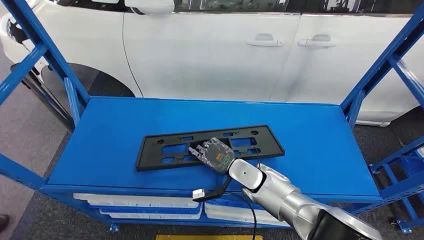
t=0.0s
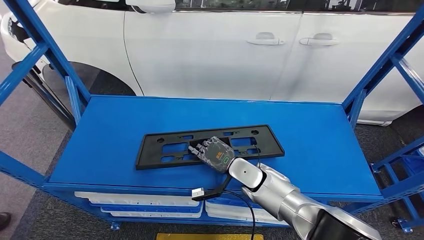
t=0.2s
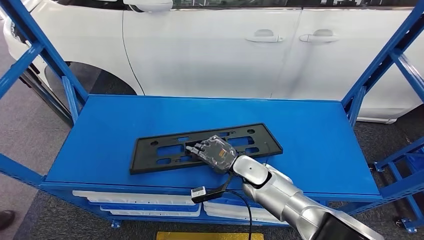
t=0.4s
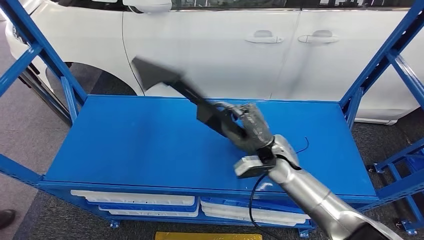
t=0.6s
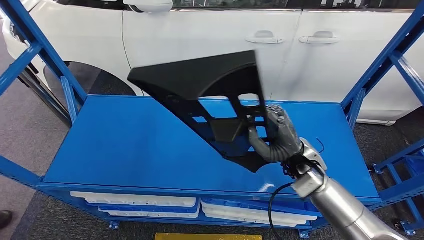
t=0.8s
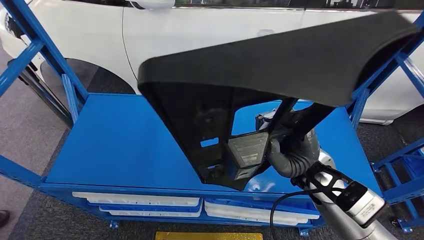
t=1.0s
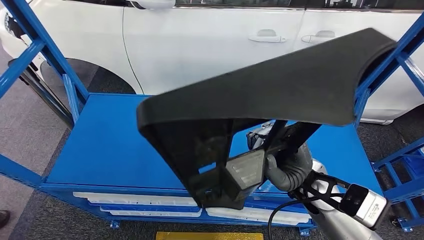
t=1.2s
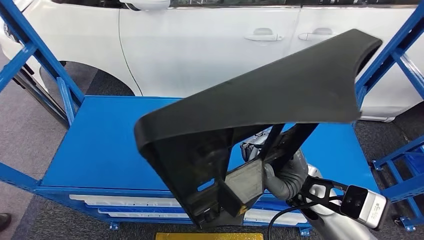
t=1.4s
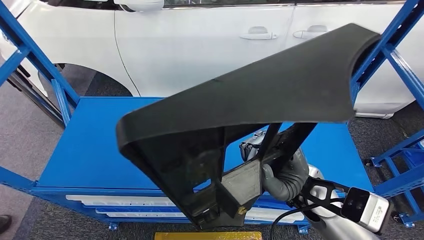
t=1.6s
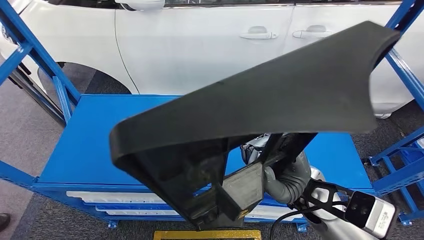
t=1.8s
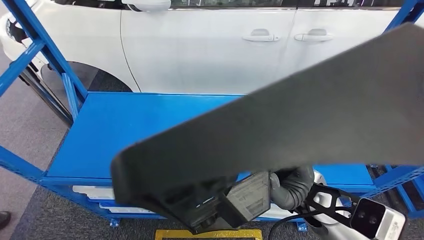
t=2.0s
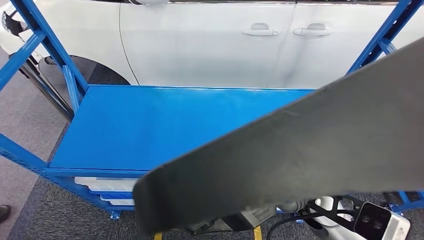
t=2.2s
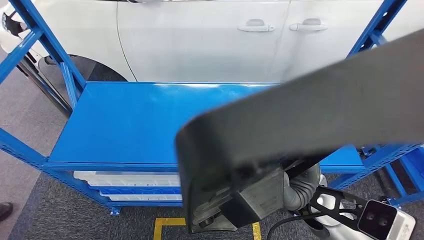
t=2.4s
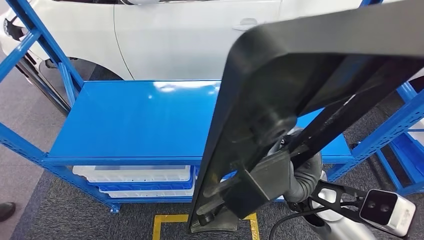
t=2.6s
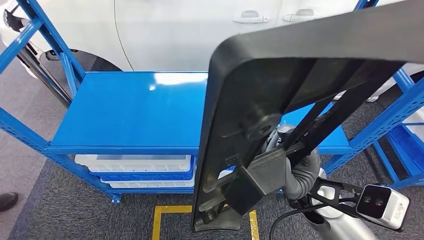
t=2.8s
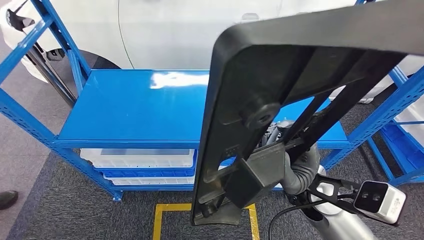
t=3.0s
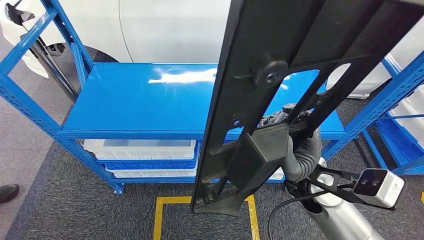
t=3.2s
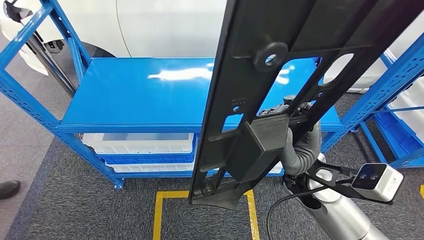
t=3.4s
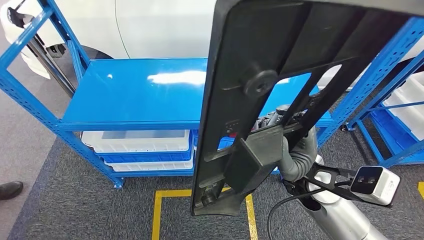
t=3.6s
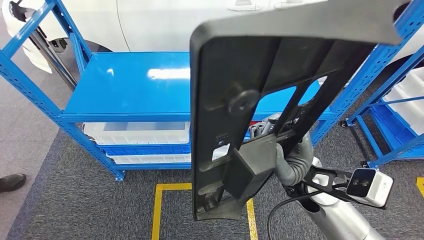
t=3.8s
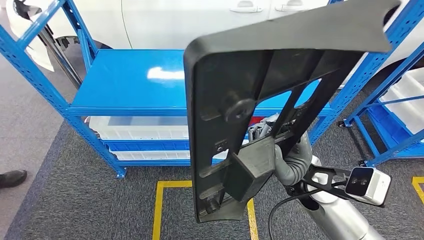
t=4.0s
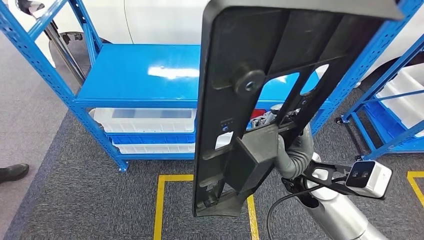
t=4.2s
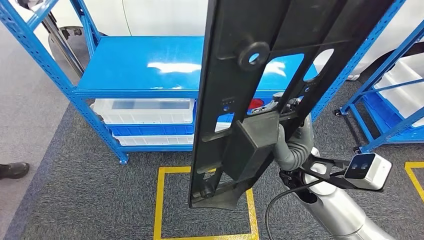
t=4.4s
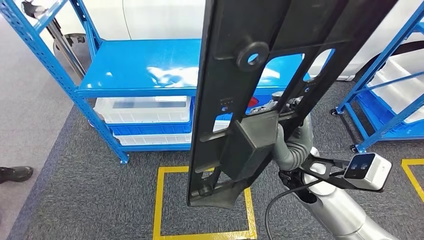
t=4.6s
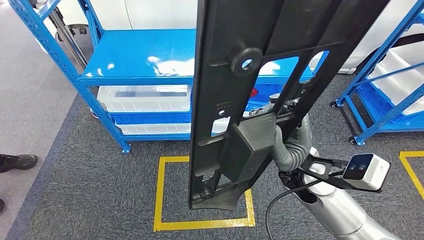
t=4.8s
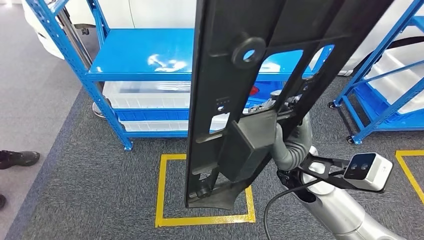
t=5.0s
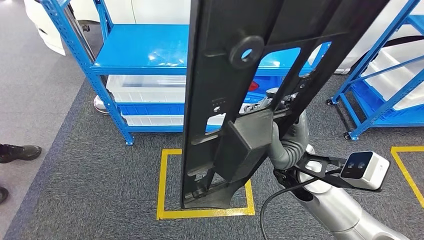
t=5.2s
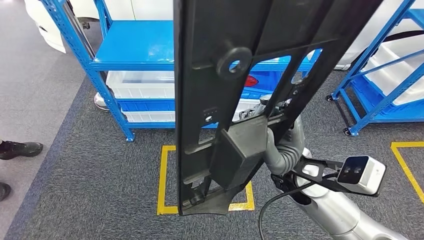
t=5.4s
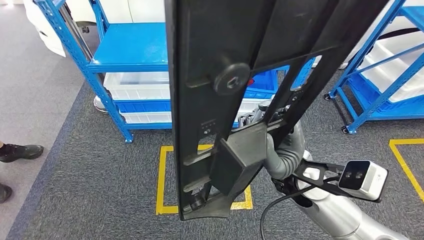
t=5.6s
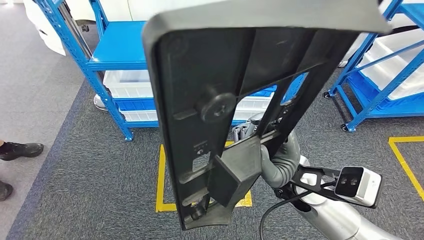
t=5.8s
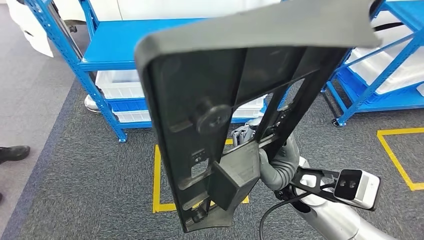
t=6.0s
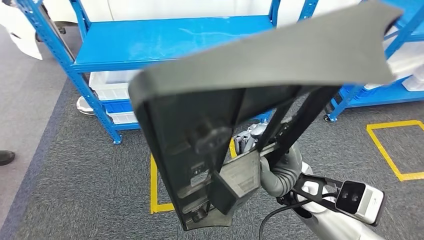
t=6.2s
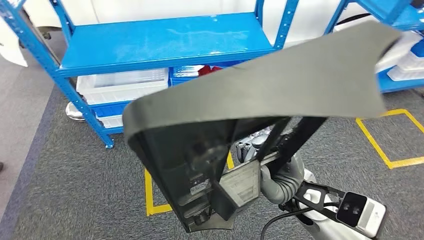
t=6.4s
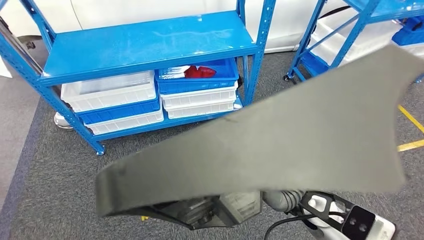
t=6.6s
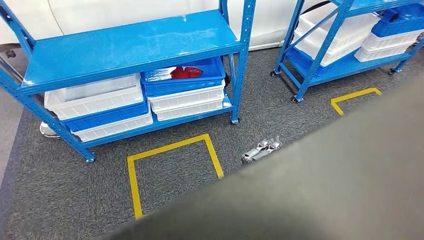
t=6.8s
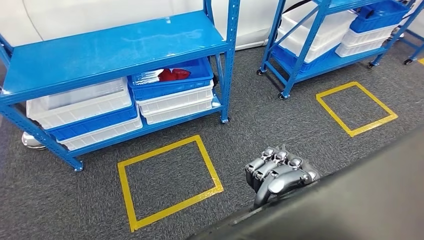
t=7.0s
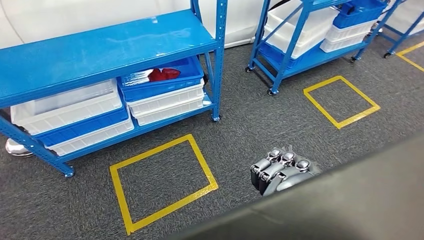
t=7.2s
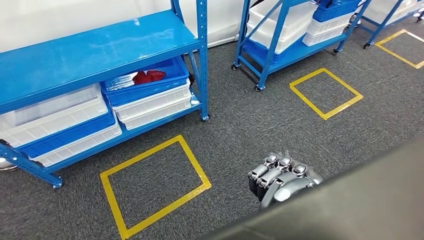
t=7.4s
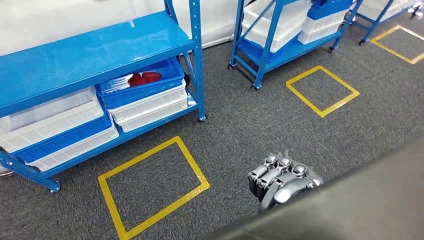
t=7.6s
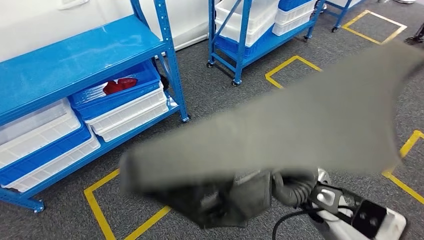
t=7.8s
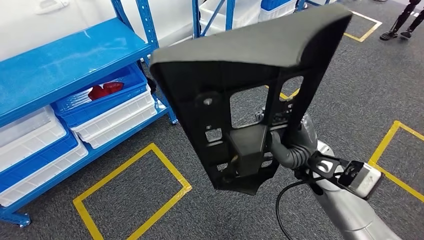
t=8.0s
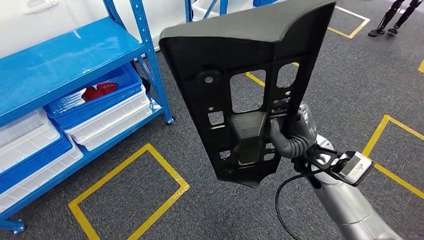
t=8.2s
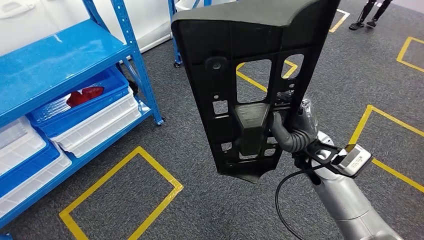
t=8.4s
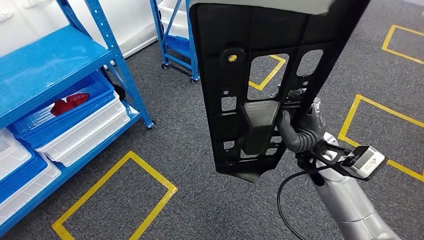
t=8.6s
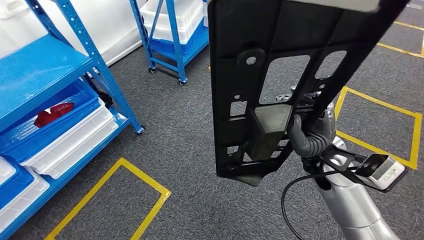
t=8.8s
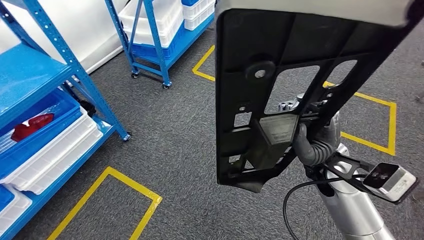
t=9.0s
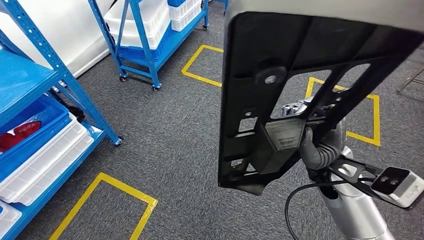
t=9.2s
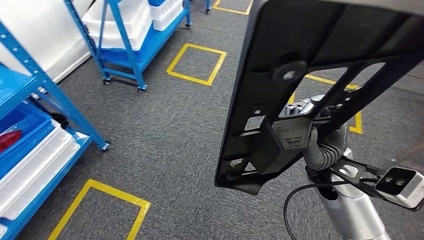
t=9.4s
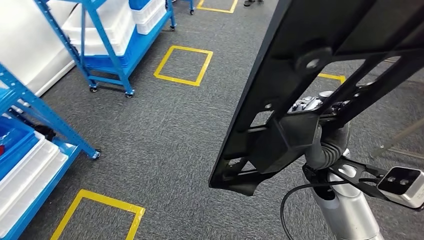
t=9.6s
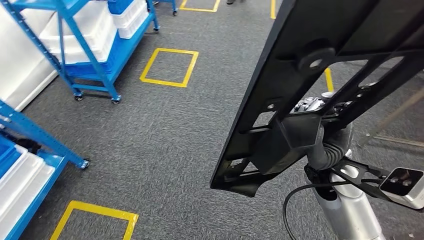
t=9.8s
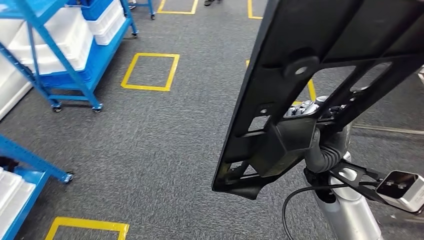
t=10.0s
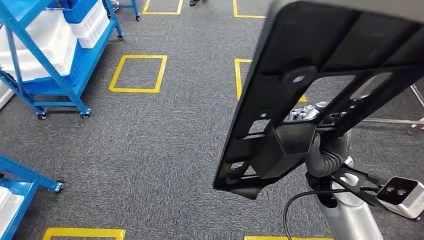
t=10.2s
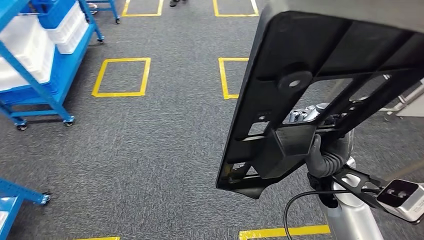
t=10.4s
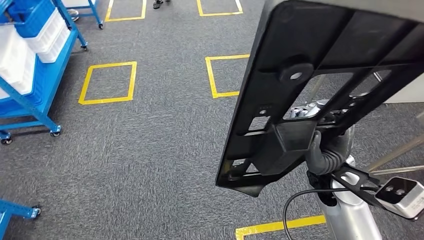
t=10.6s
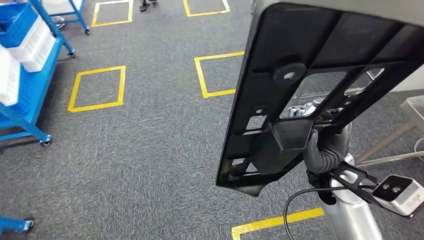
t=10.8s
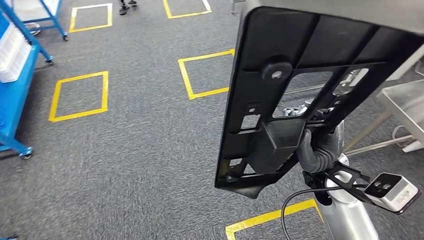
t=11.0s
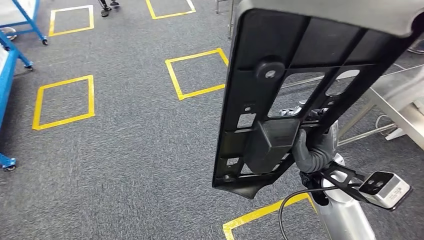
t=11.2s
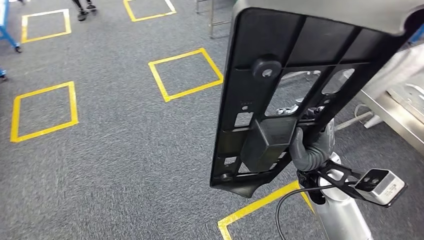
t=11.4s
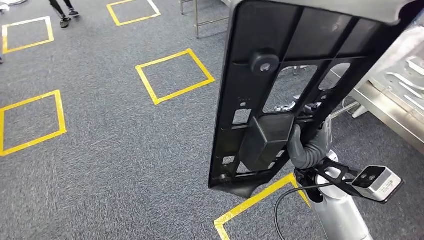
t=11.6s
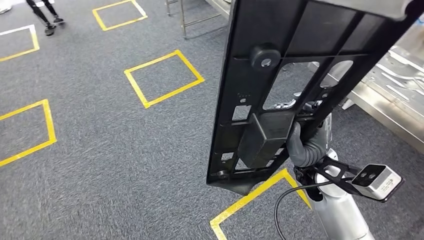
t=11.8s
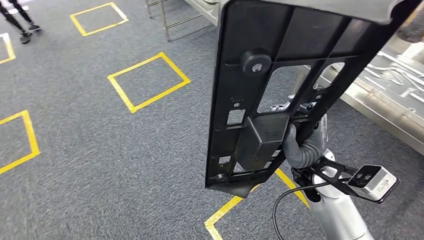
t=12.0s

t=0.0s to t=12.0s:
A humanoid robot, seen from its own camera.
Step, t=0.0s to t=3.4s: Pick up the large material from the shelf.

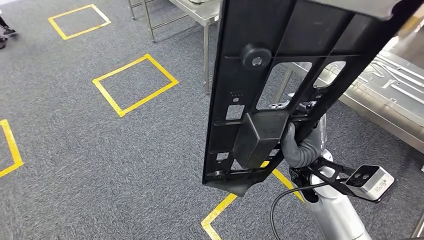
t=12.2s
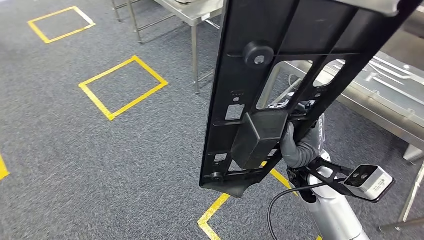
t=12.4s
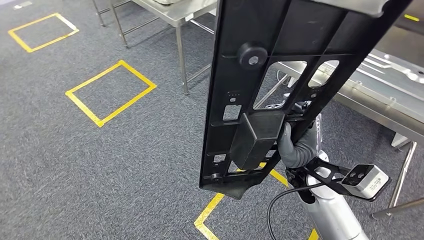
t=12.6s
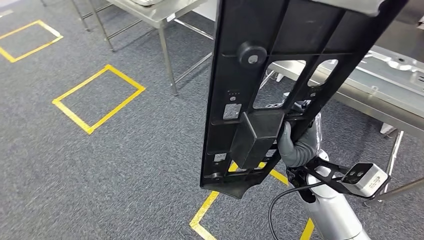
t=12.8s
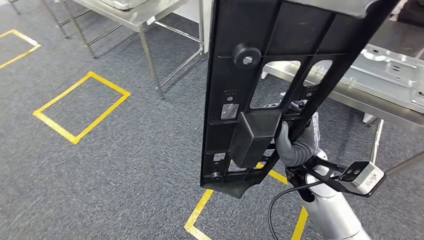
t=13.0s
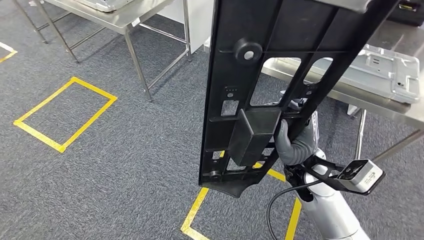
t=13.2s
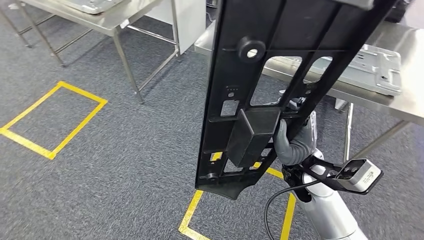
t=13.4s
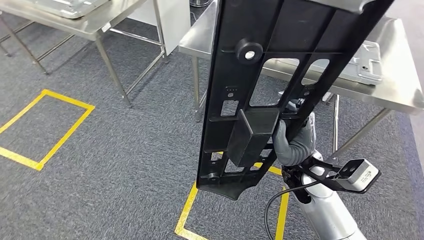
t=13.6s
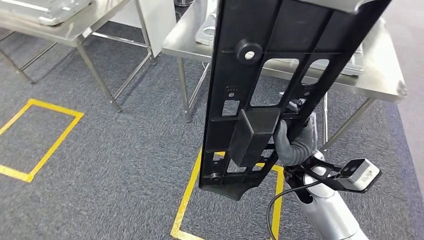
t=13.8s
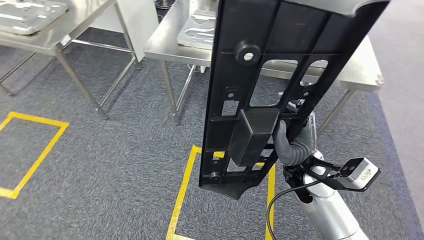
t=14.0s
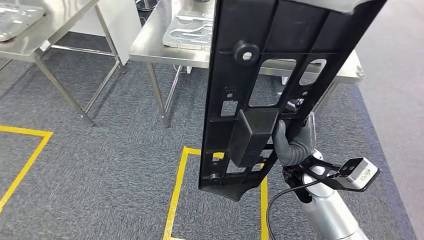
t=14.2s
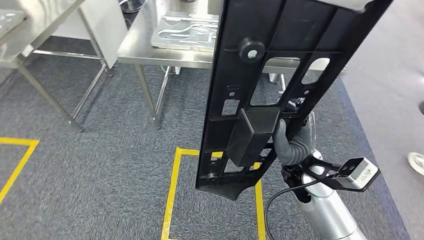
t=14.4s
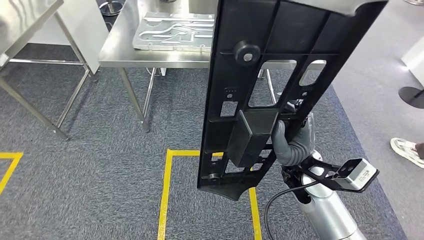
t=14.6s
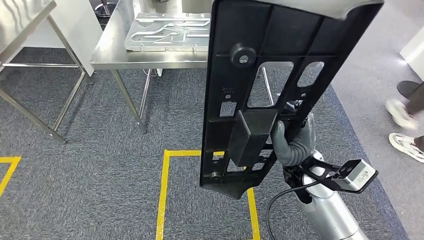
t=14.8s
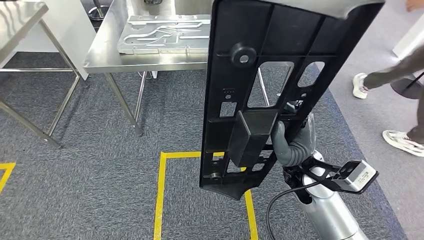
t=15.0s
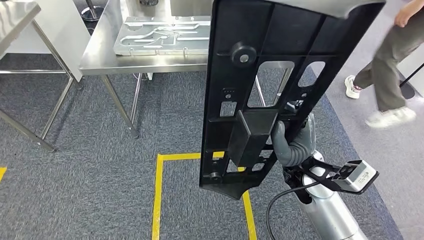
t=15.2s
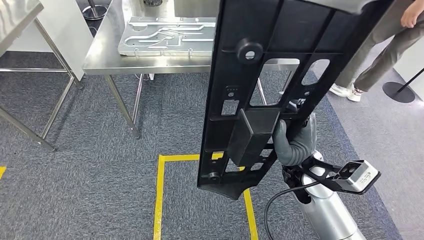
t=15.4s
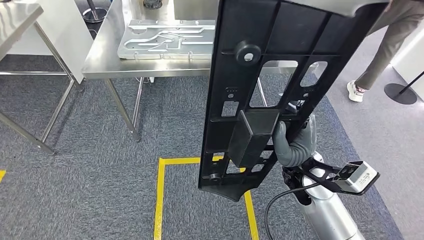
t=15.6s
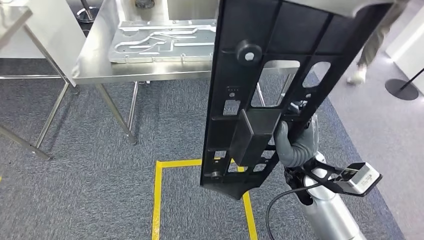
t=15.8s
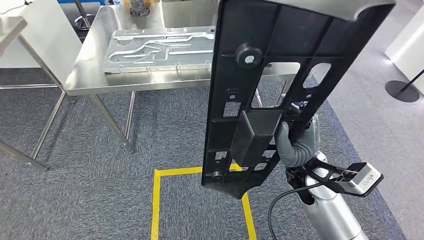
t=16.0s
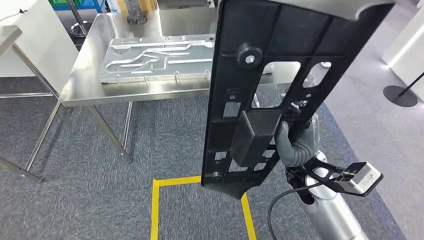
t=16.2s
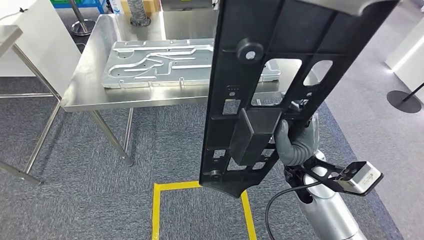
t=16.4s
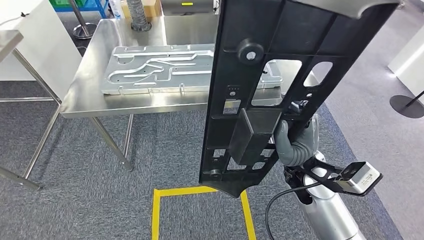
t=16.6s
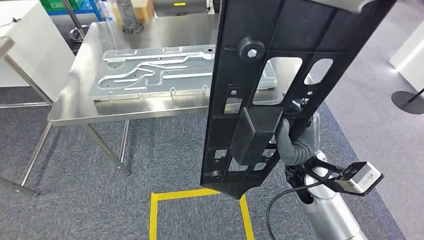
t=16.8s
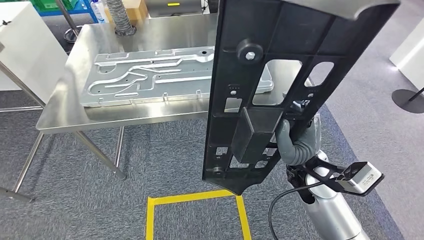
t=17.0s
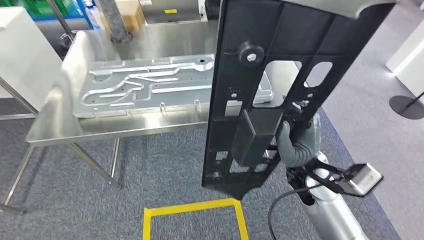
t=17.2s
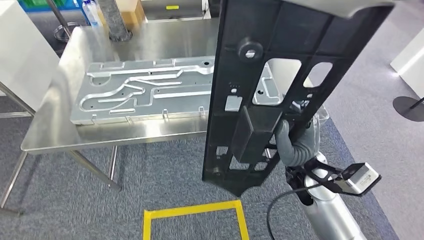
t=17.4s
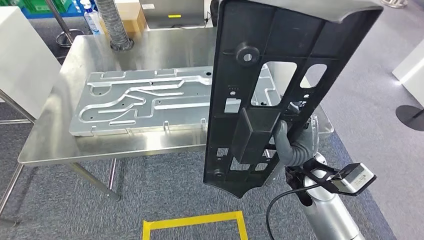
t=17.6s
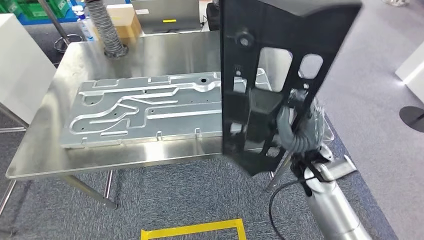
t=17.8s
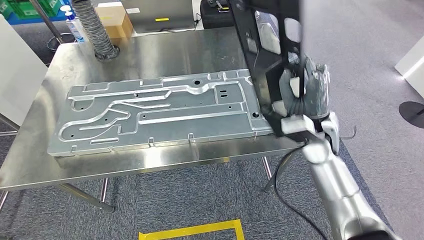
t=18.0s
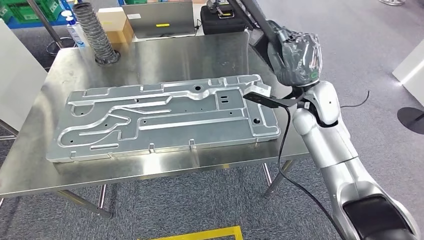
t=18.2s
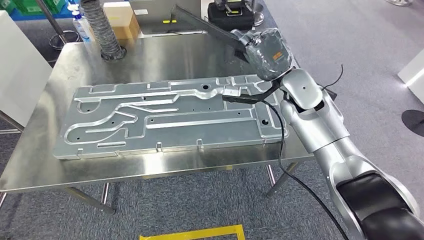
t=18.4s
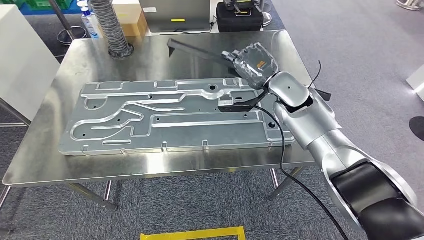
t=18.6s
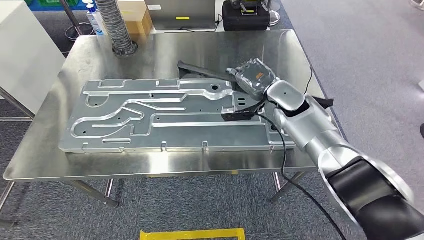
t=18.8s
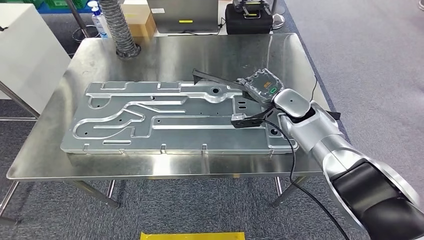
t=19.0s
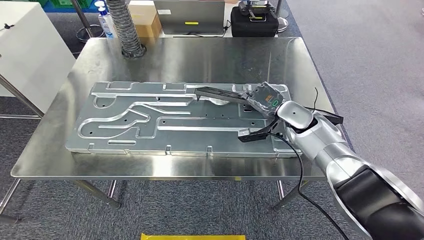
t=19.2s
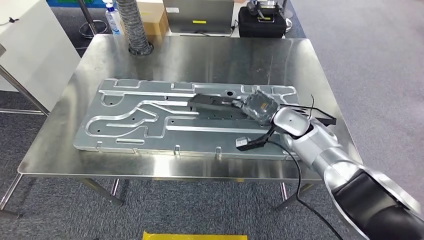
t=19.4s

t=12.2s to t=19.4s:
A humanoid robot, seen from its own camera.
Step, t=12.2s to t=16.0s: Move the large material to the front of the workbench.
